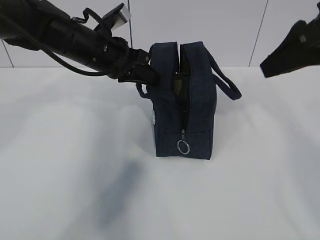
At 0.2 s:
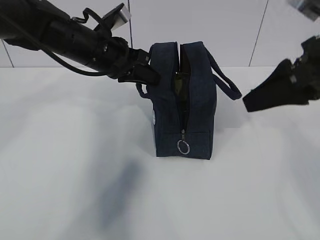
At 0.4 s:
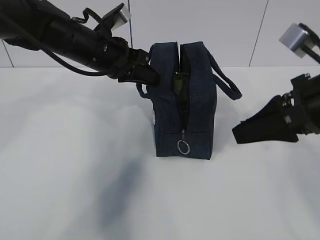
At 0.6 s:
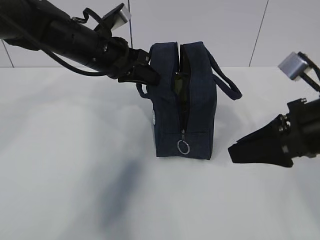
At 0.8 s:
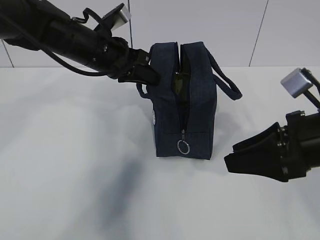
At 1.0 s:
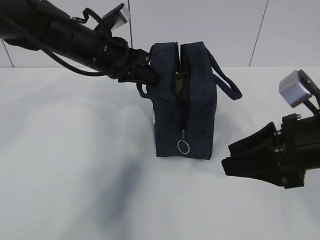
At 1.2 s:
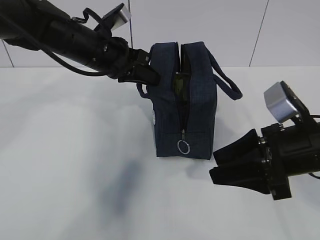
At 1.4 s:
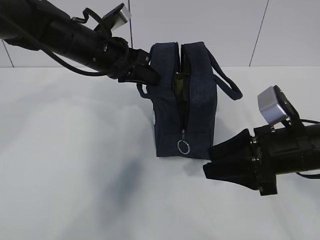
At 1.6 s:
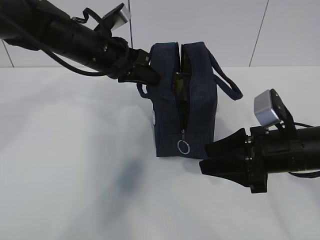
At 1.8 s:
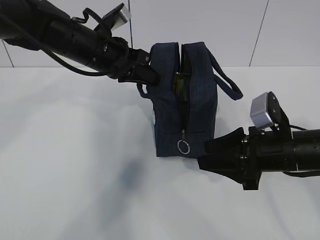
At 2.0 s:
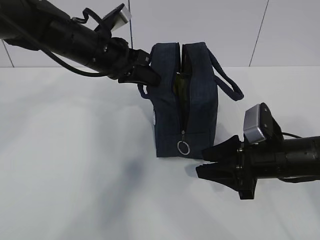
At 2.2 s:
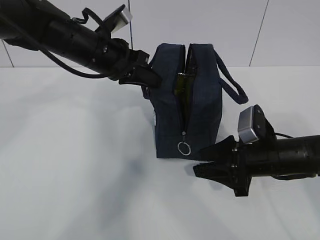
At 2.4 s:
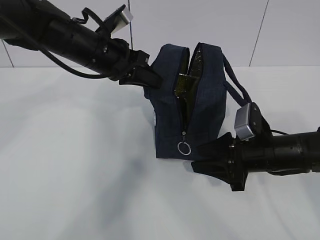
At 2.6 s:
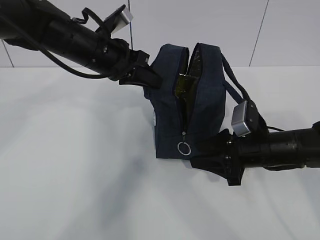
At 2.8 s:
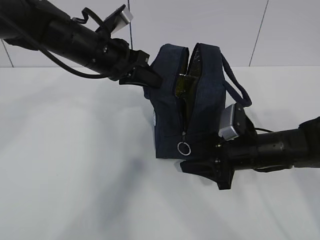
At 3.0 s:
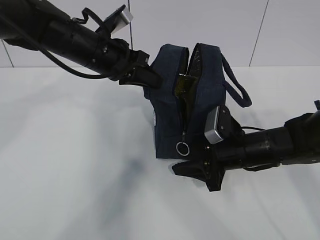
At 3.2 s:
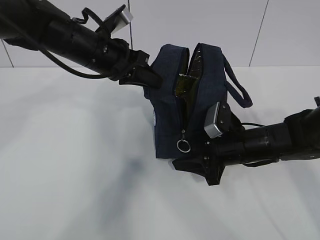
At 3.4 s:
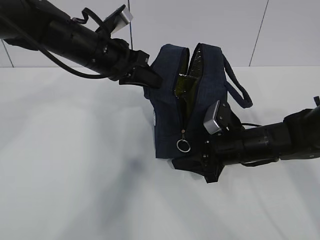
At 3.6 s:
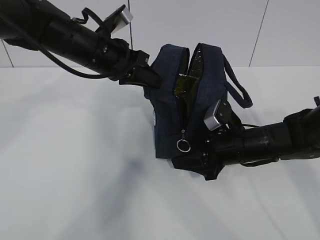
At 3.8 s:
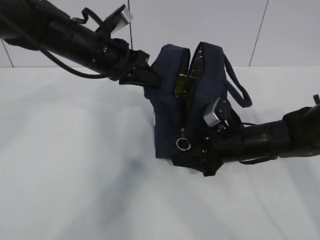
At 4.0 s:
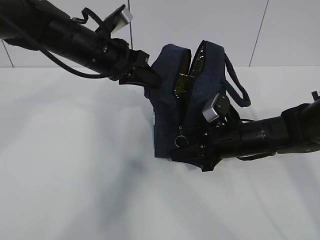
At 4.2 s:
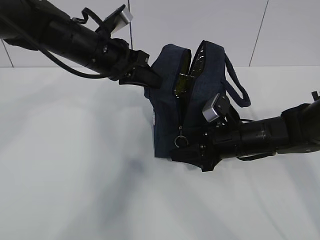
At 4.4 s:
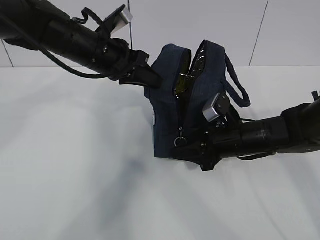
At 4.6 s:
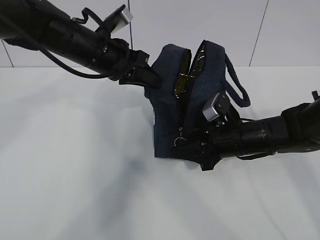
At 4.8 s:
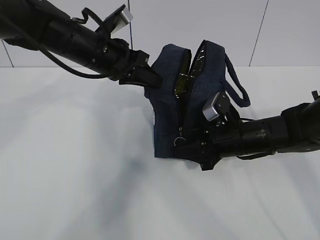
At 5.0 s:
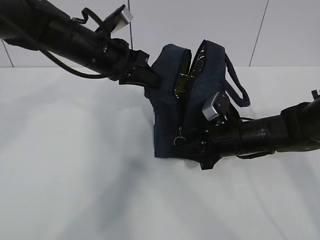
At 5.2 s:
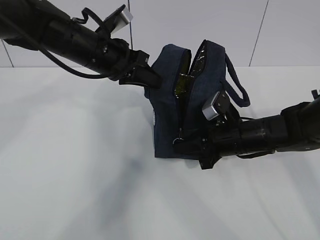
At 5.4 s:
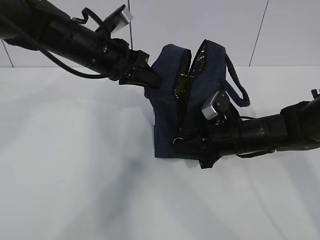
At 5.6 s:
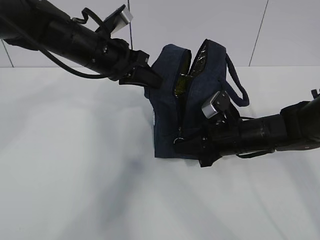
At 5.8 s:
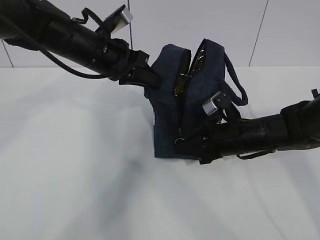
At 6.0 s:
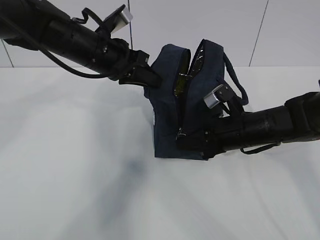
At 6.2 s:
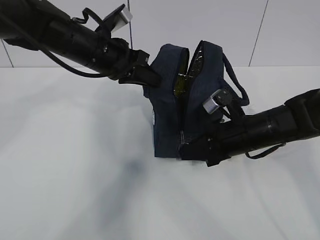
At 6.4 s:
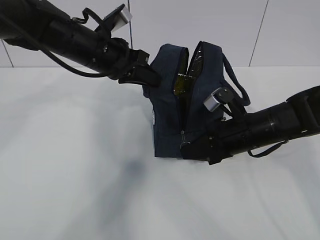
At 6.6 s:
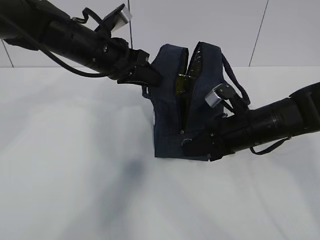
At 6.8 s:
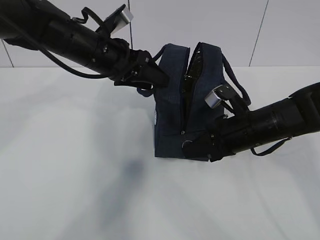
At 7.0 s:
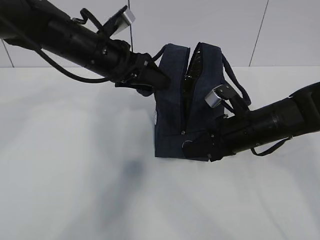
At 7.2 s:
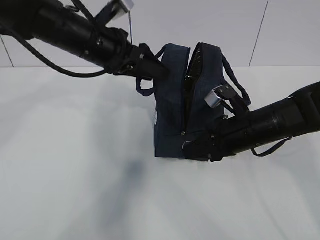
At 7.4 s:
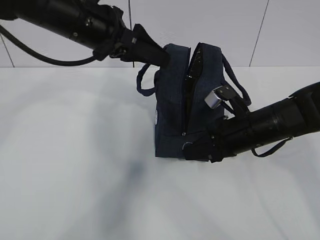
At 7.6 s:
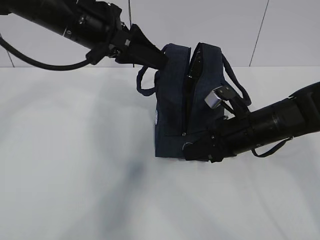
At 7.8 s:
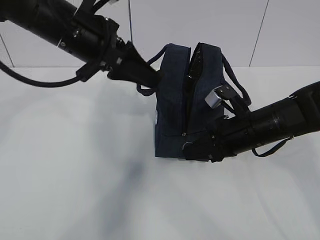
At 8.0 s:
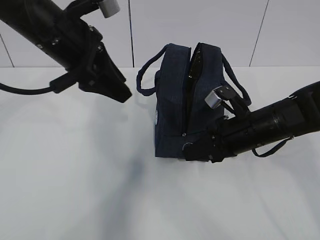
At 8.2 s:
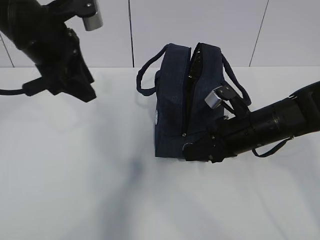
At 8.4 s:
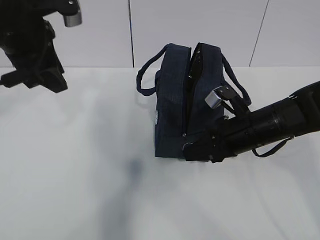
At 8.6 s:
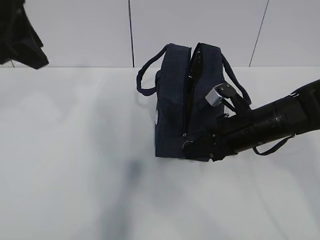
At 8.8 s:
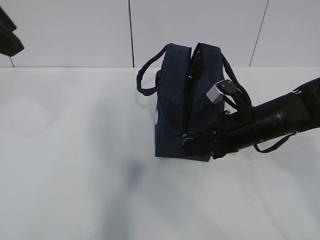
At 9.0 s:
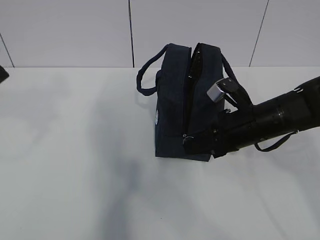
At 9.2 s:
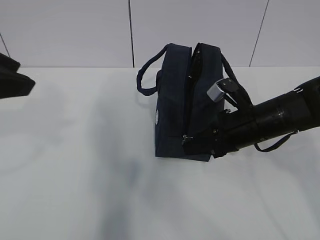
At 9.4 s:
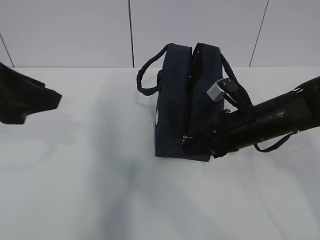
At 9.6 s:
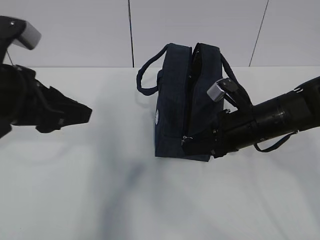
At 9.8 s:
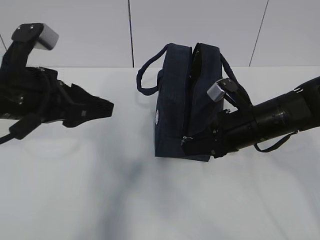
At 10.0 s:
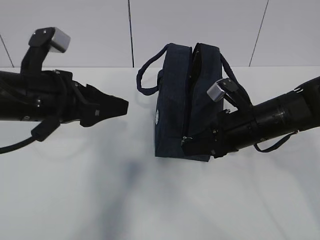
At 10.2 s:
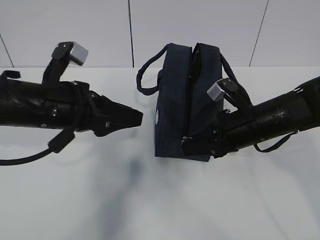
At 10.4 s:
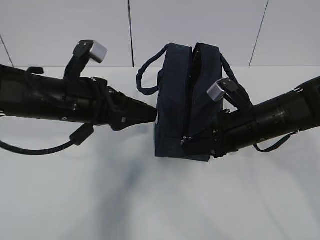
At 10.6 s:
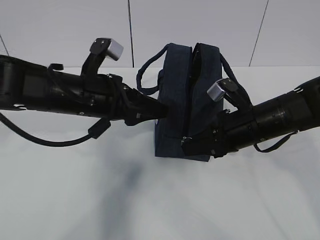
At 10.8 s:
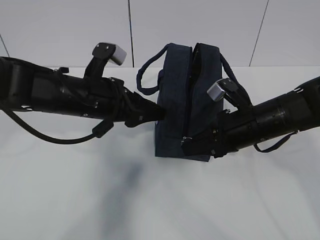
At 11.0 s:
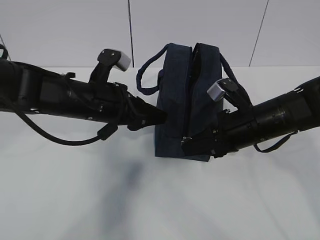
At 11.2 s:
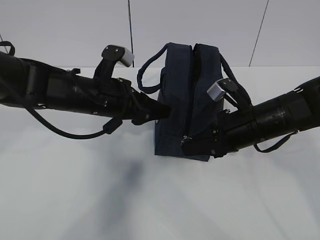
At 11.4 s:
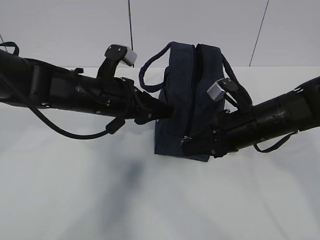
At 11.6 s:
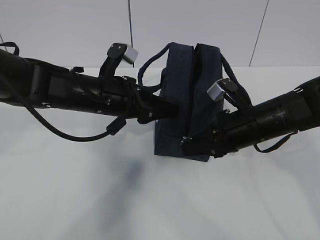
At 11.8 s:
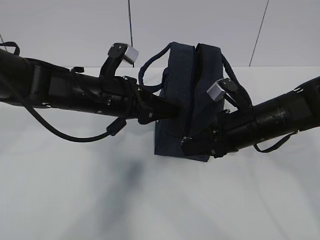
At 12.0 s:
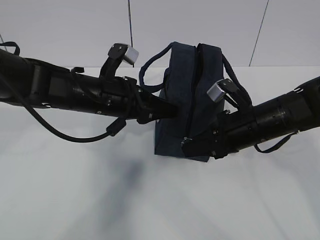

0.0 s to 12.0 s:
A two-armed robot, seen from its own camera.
Step, 0.0 to 9.2 s: Pull the zipper with your right hand.
Step, 9.4 to 10.4 s: Grab the lunch bag with your left hand.
0.0 to 1.6 s: The right gripper moves downward, some 20 cm.
1.6 to 3.0 s: The right gripper heads downward and forward, covering about 10 cm.
3.0 to 4.4 s: The grippers stay close to where they were, moving slightly.
4.4 to 6.0 s: The right gripper closes its fingers.
6.0 to 7.6 s: The left gripper heads upward, covering some 5 cm, and opens up.
7.6 to 9.0 s: The left gripper shifts some 20 cm backward, to the left and upward.
9.0 to 10.4 s: The left gripper is displaced downward, to the right and forward by approximately 20 cm.
10.4 to 12.0 s: The left gripper shifts by roughly 5 cm.

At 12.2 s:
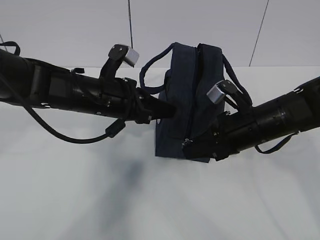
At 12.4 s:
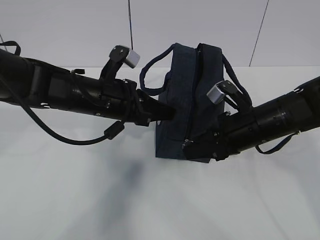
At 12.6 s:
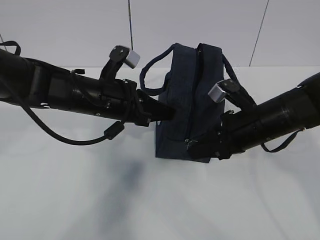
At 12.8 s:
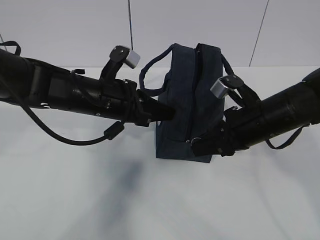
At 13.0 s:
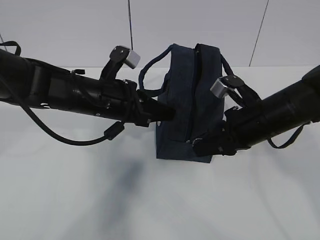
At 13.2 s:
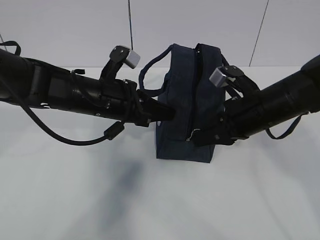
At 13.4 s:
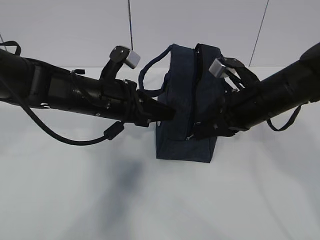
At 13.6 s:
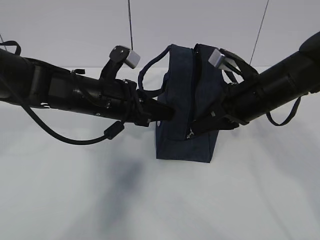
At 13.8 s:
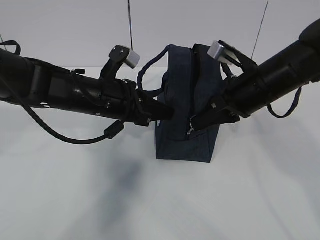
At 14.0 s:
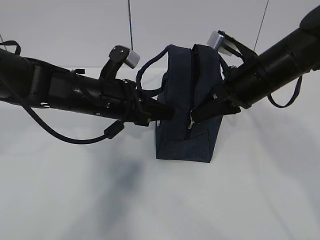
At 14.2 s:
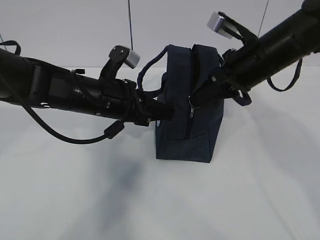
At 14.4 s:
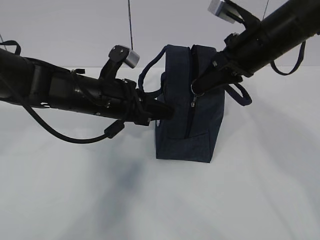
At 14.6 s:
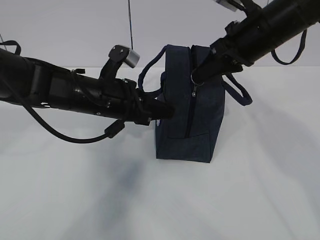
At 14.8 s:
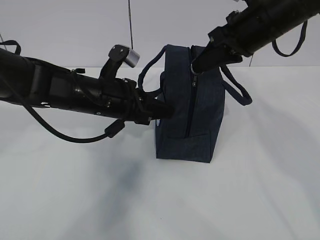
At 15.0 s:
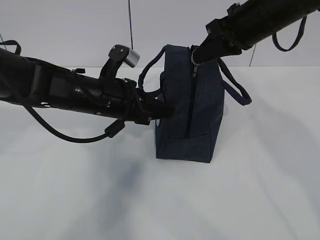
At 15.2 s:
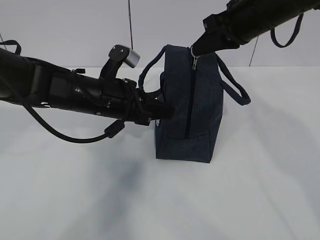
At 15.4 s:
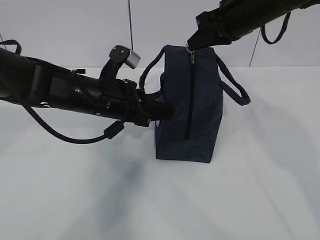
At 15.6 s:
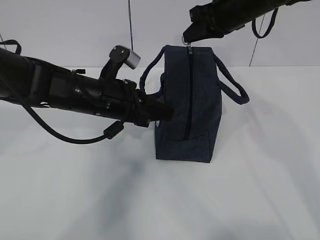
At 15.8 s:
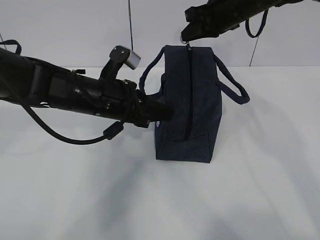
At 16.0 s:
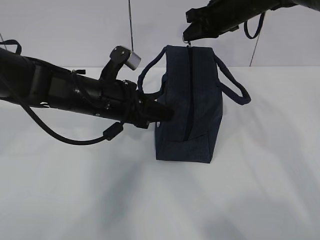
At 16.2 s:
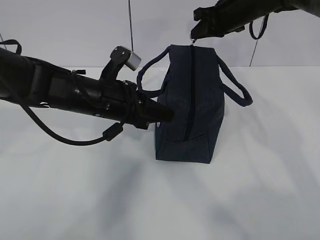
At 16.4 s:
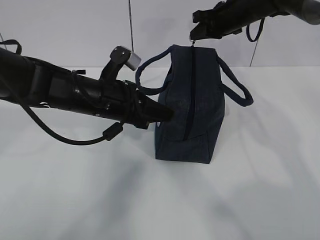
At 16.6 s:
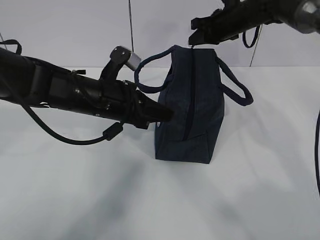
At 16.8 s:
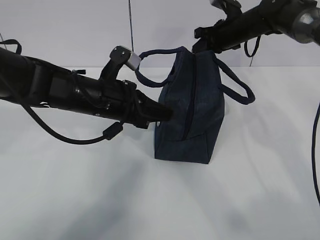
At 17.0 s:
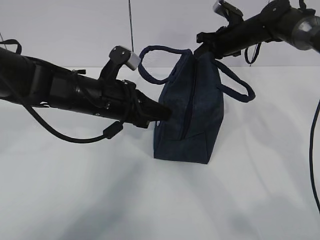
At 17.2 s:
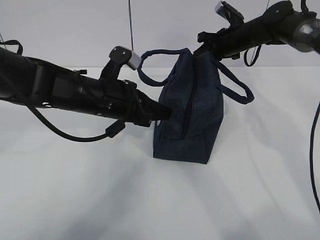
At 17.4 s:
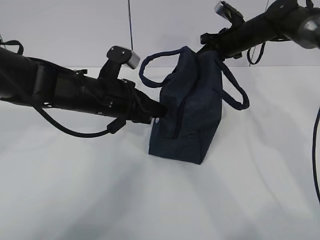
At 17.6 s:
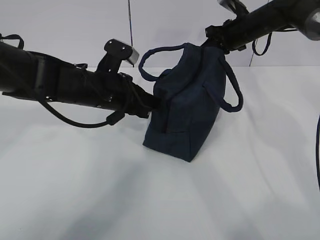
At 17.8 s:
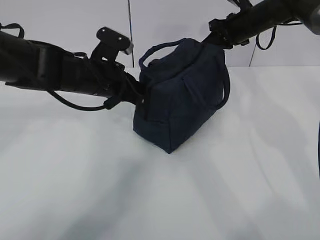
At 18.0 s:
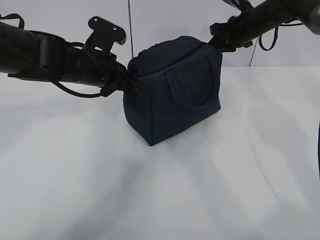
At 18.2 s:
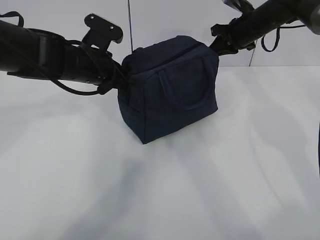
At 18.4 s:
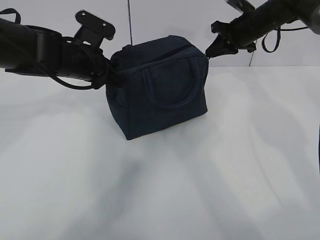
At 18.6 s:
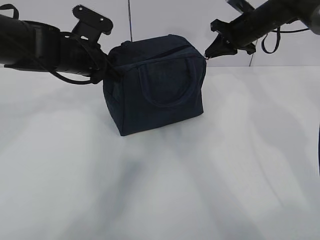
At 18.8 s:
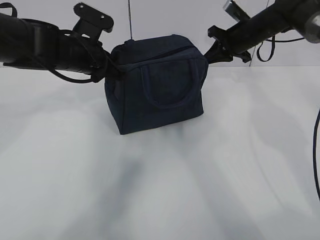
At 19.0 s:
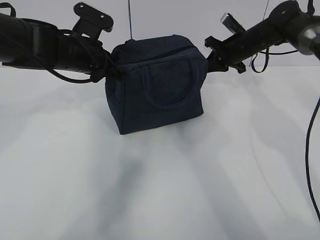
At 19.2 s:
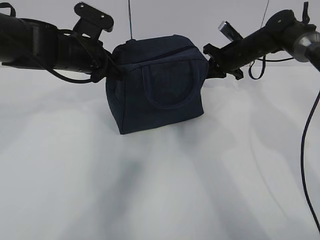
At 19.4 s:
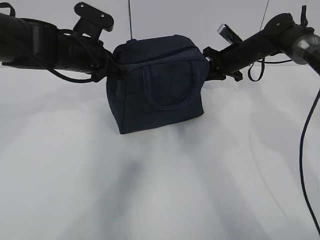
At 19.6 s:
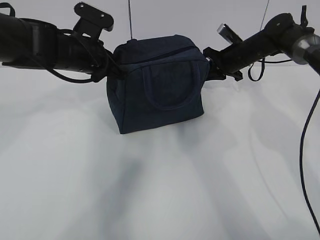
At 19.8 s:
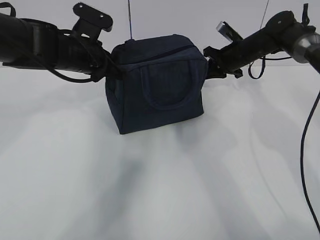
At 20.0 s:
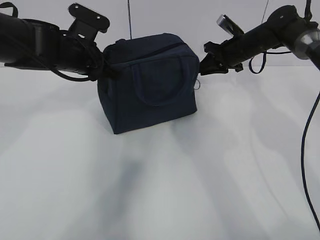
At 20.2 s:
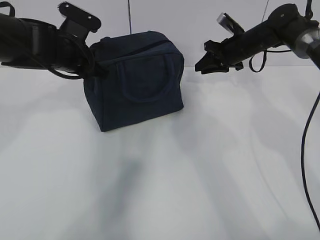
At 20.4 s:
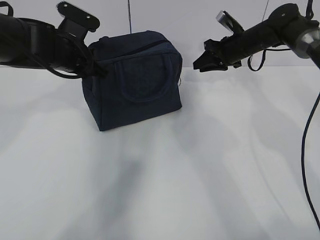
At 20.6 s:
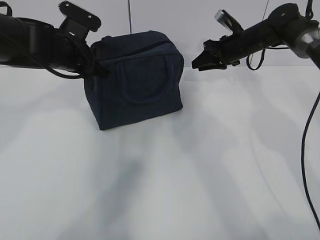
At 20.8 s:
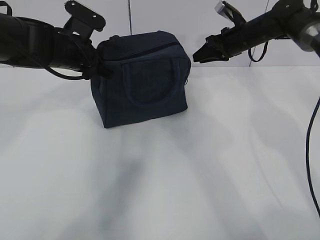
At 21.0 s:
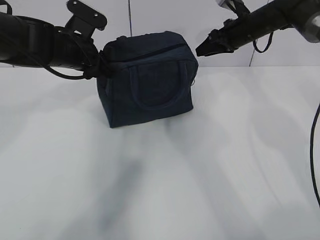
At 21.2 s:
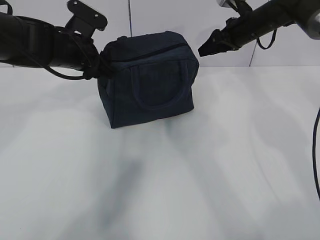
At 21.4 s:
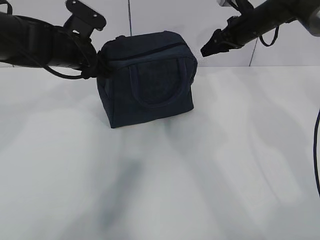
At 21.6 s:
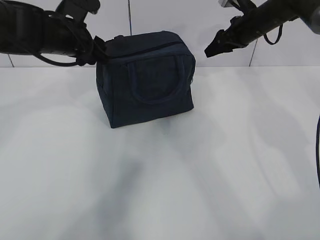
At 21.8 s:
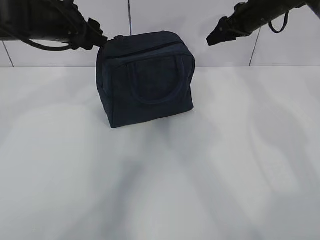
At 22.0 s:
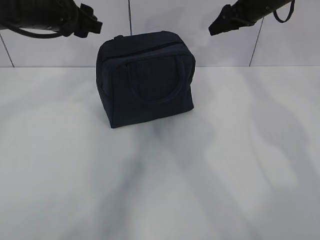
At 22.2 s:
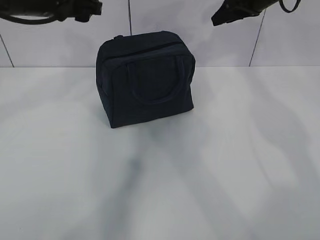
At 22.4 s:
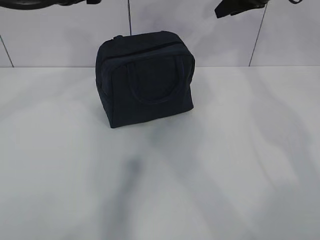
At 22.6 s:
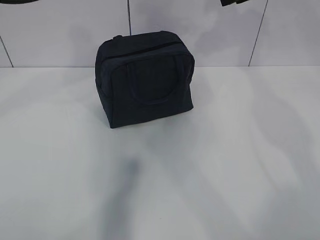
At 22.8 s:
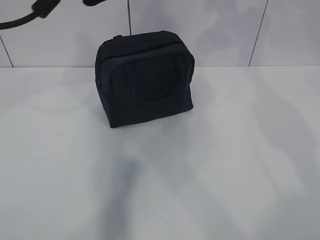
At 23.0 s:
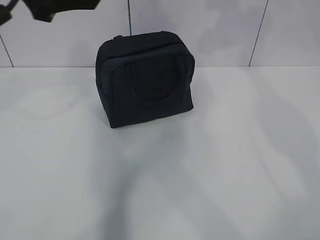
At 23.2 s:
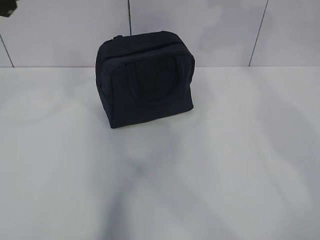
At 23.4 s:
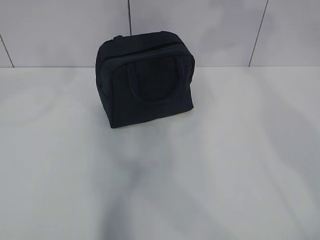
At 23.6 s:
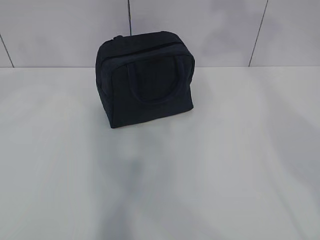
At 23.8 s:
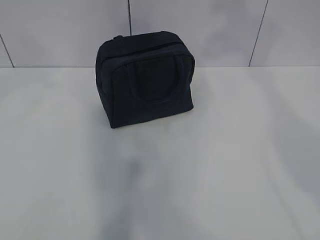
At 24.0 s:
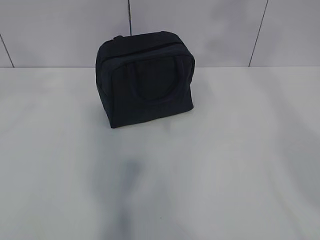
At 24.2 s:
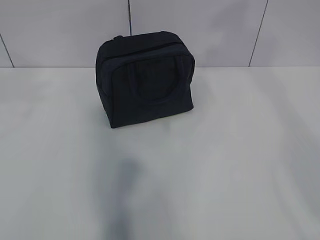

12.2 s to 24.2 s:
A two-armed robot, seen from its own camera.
12.2 to 13.8 s: The right gripper travels upward by some 5 cm.
13.8 to 15.2 s: The right gripper goes about 10 cm upward and forward.
15.2 to 16.6 s: The right gripper is displaced forward and downward by roughly 15 cm.
16.6 to 18.2 s: The left gripper heads forward, covering some 5 cm.
18.2 to 19.8 s: The right gripper travels downward by approximately 5 cm.
19.8 to 21.2 s: The left gripper opens its fingers. Meanwhile the right gripper moves upward, about 5 cm, and opens up.
21.2 to 22.6 s: The grippers both shift upward and backward by roughly 15 cm.
22.6 to 24.2 s: The right gripper shifts approximately 25 cm backward and upward; the left gripper goes about 25 cm backward, to the left and upward.
